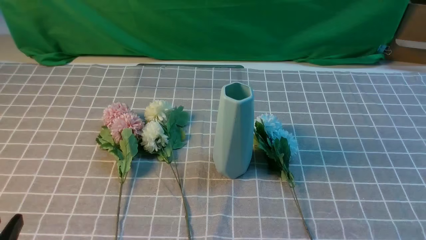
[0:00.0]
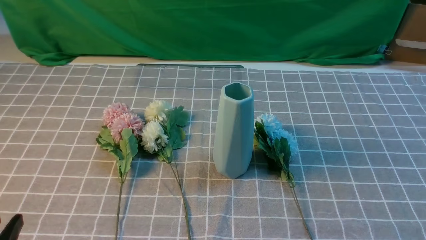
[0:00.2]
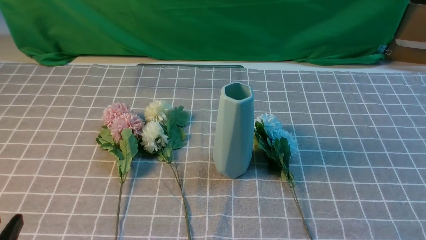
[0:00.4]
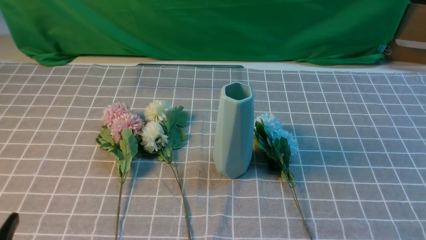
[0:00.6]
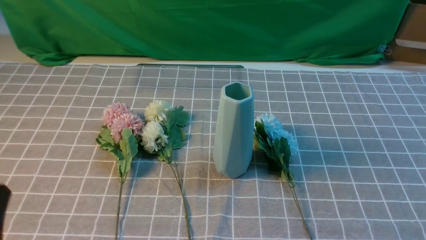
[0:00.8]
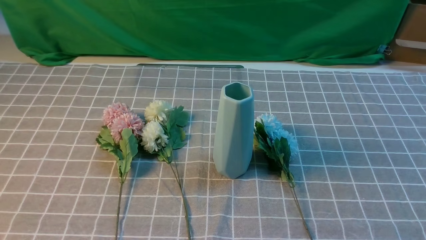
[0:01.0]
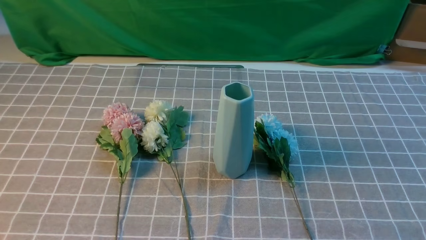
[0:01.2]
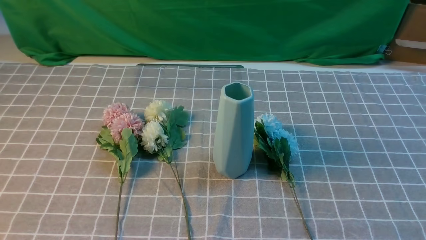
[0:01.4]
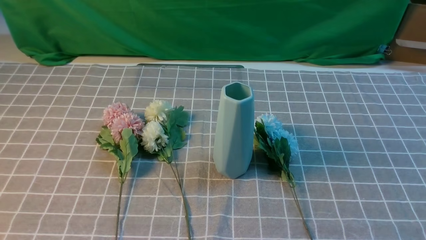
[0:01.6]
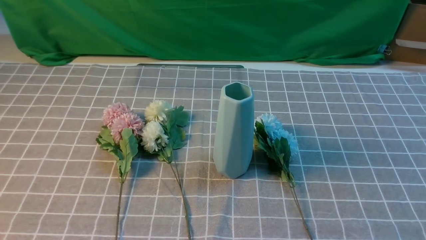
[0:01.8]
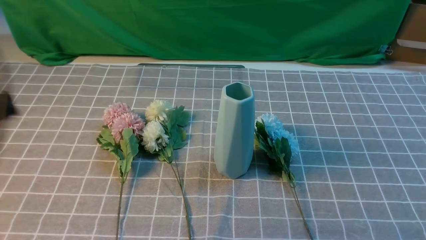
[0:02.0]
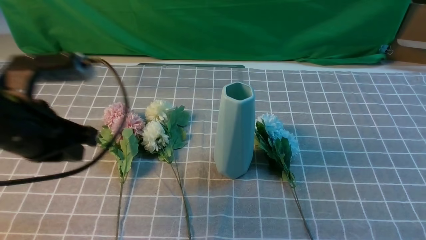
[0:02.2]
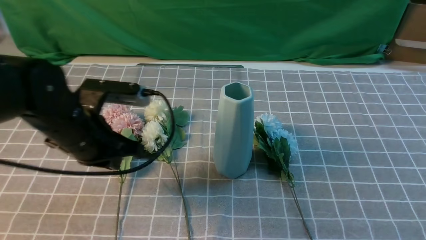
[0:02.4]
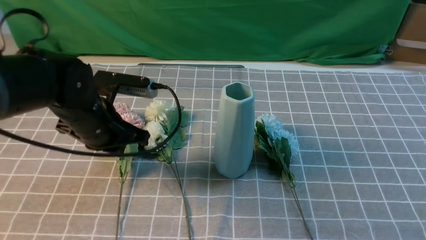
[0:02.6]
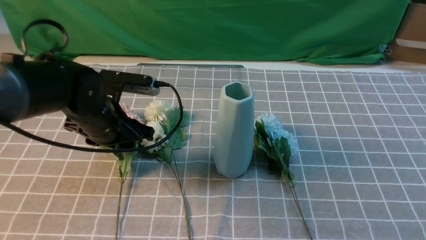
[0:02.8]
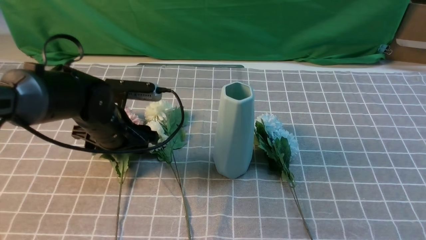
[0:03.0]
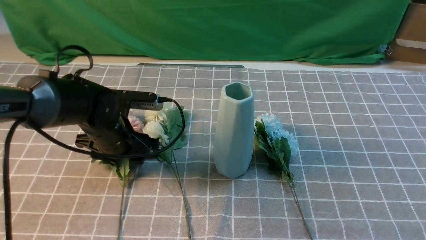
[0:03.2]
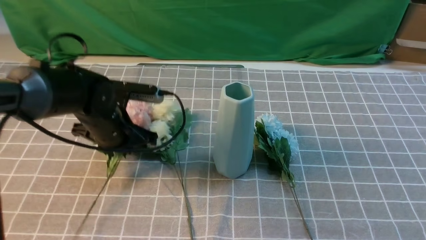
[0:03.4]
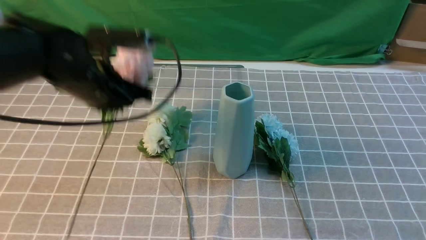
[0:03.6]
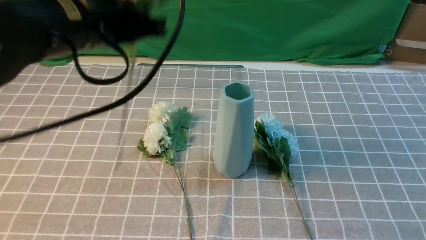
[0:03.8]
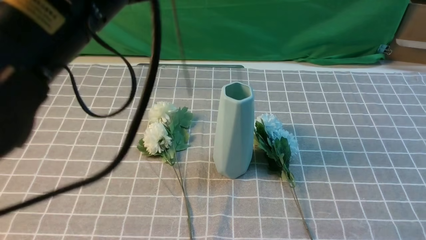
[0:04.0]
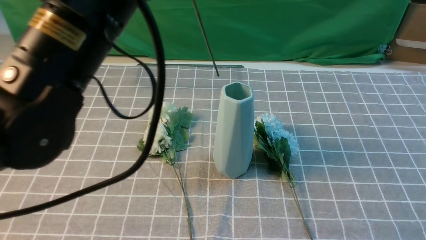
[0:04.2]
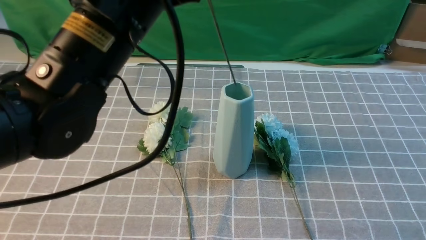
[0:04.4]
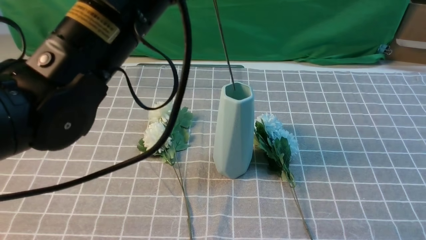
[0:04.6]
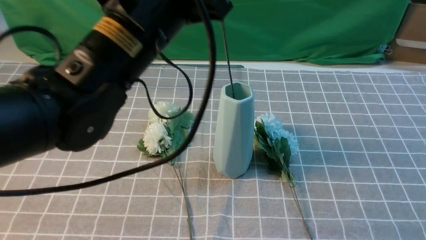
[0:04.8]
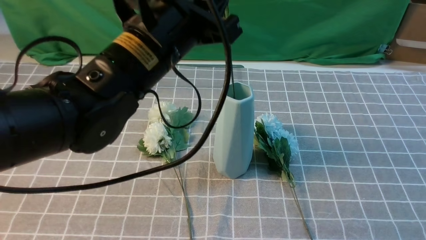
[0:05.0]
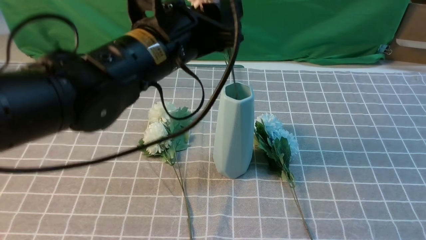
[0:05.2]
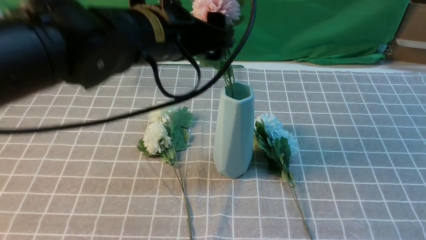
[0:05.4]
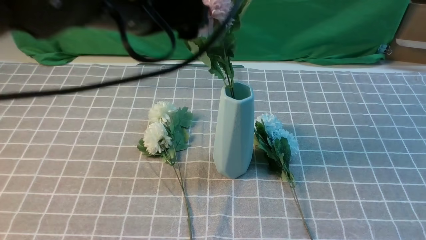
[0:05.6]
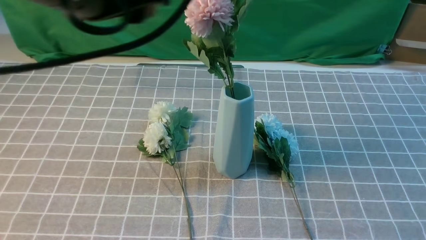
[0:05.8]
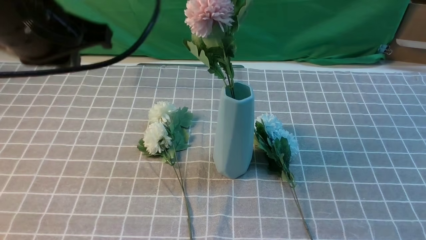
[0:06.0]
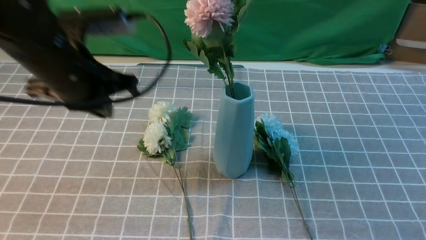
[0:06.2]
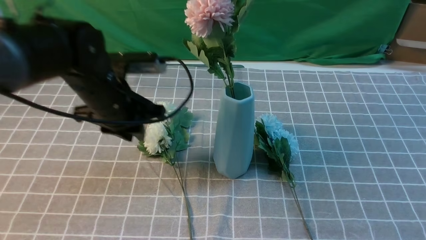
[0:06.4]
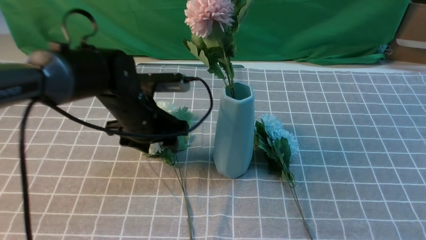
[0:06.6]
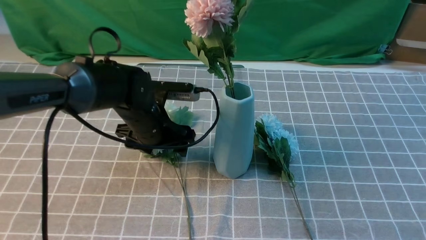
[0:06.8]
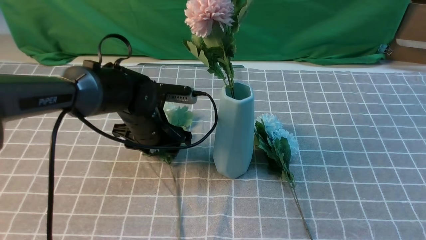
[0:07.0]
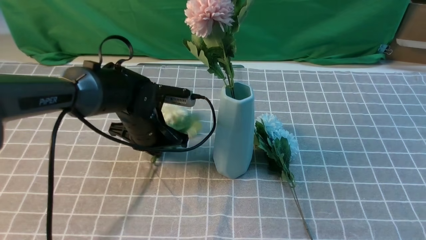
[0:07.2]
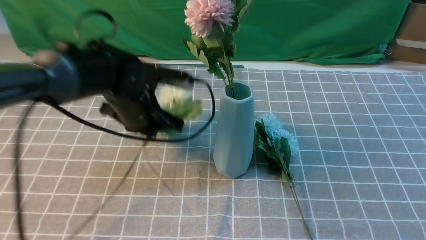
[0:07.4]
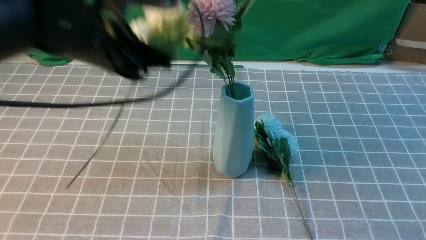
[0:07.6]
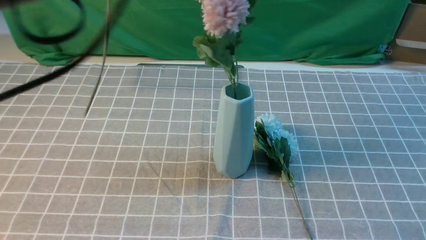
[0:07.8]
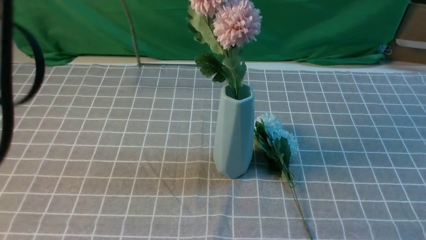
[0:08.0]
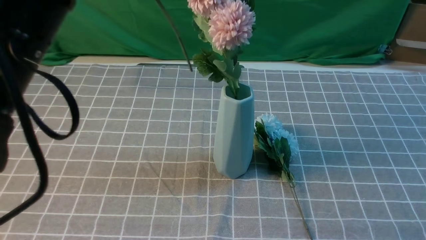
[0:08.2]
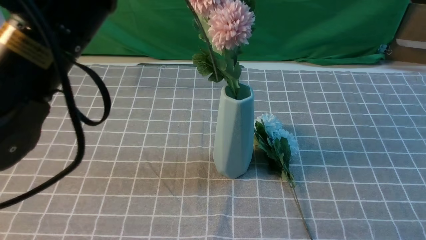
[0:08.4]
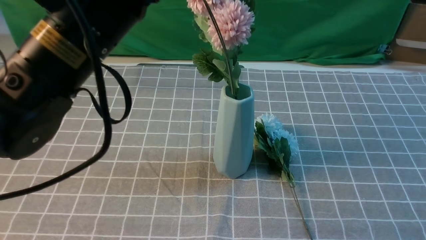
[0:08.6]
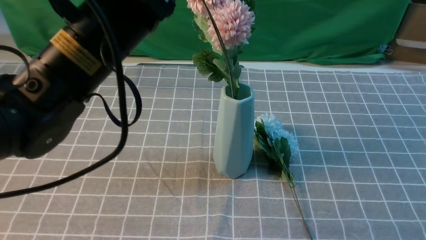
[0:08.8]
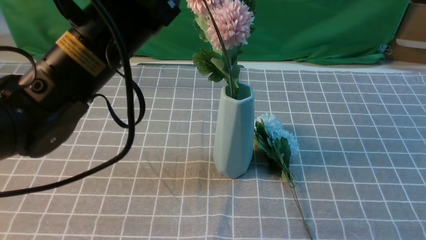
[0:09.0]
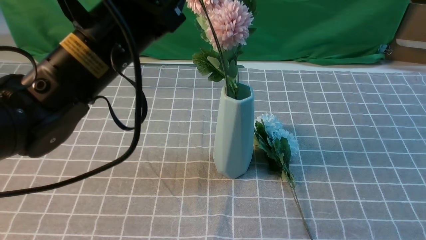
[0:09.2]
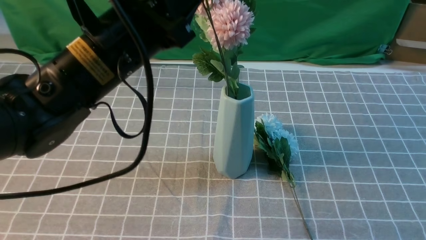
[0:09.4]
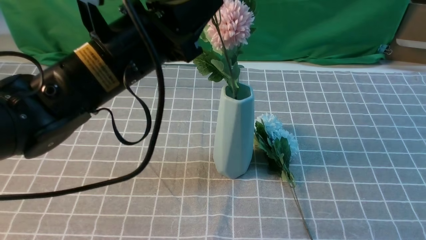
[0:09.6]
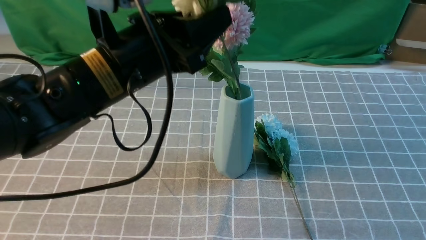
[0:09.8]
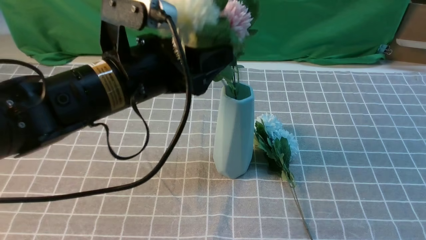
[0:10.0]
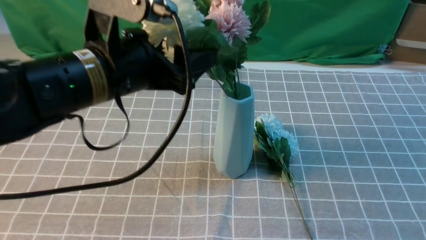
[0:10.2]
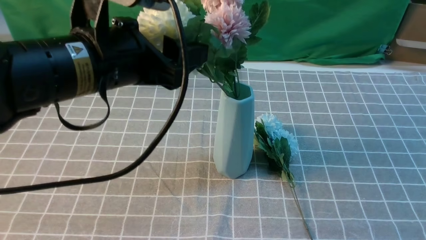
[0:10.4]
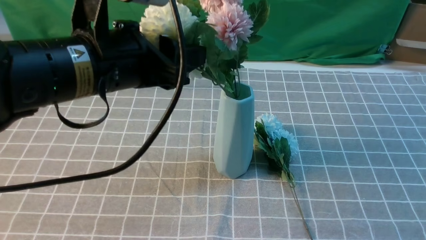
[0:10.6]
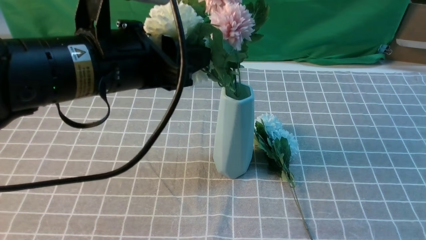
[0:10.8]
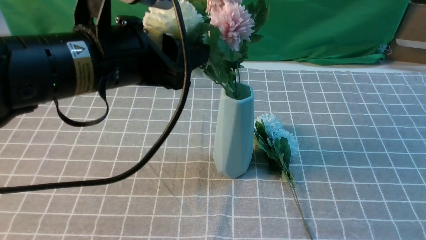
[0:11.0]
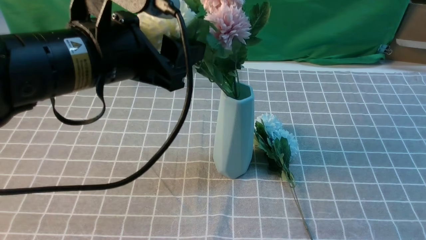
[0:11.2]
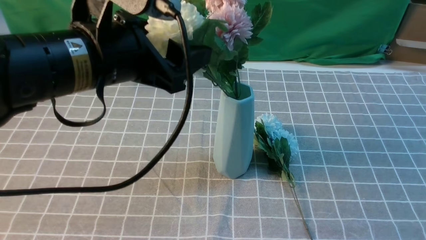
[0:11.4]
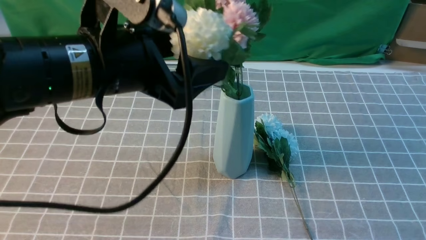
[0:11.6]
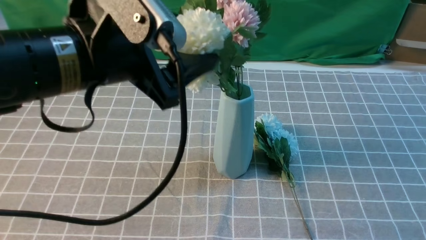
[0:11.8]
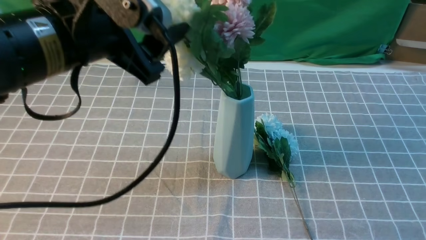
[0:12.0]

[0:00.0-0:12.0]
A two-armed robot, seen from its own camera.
Task of the whole recording: insert the flowers into the vase on the table with the grey tablecloth.
Step, 0:00.0 to 0:03.2: use the left arm to grab a bunch of fresh flowers.
Step, 0:03.4 to 0:05.4: use the left arm to insert the flowers into the vase.
Step, 0:05.6 to 0:07.2: use the left arm to grab a bunch of fresh flowers.
Step, 0:07.4 to 0:10.4: use the left arm to insert the flowers into the vase.
0:01.6 to 0:03.0: The right gripper shifts approximately 15 cm upward and forward, and closes up; the left gripper is displaced forward and downward by some 35 cm, and opens up.
0:03.0 to 0:04.4: The left gripper is displaced upward and backward by about 25 cm, and closes.
0:04.4 to 0:06.0: The left gripper travels to the left by some 5 cm, and opens, then closes again.
0:06.0 to 0:07.6: The left gripper moves about 20 cm downward and comes back, and opens, then closes again.
0:09.0 to 0:10.4: The left gripper opens up.

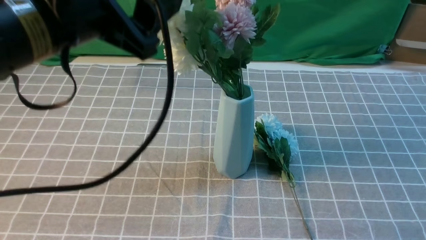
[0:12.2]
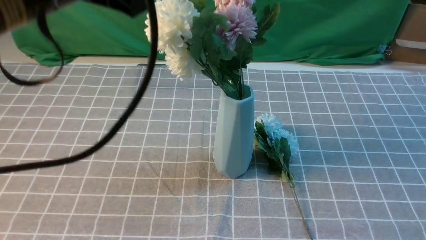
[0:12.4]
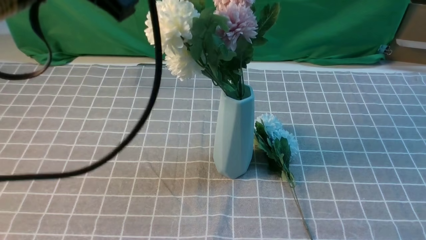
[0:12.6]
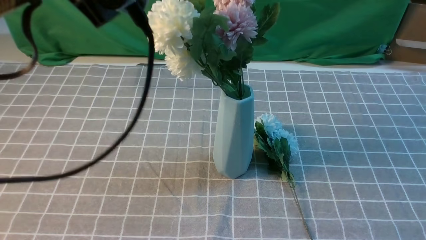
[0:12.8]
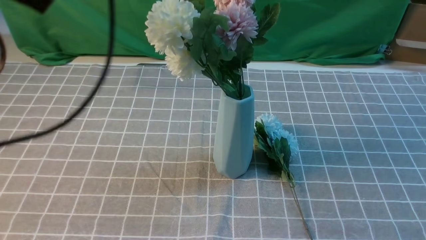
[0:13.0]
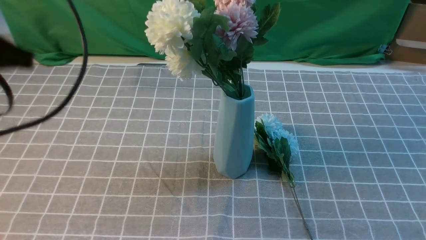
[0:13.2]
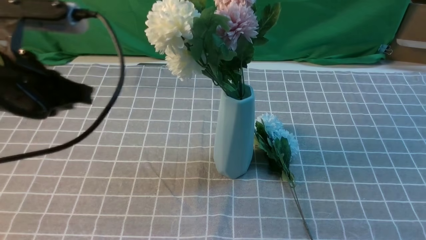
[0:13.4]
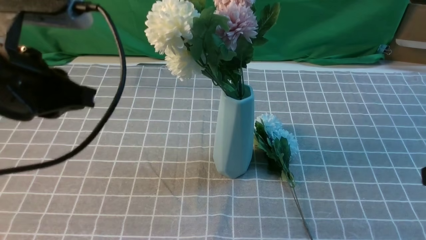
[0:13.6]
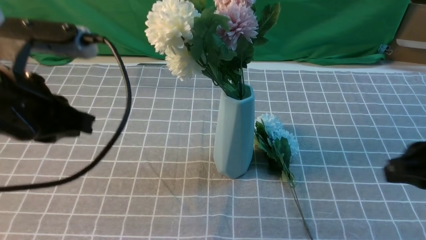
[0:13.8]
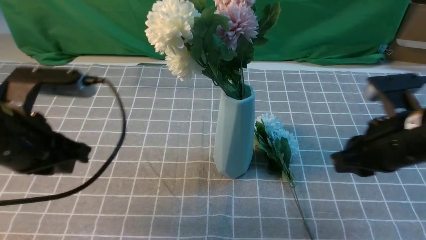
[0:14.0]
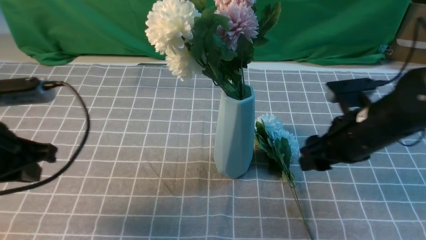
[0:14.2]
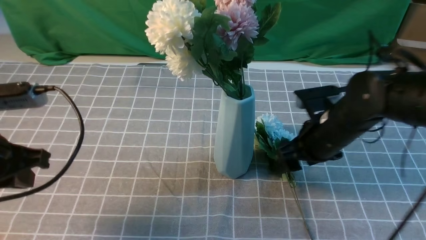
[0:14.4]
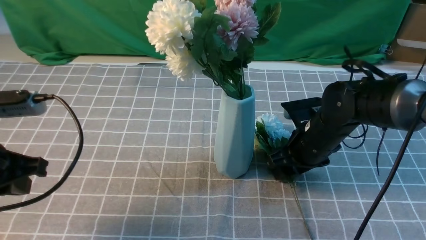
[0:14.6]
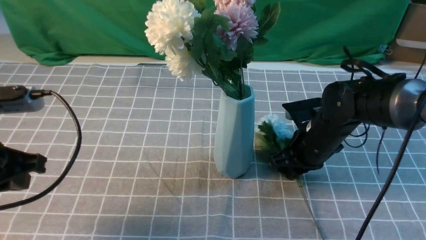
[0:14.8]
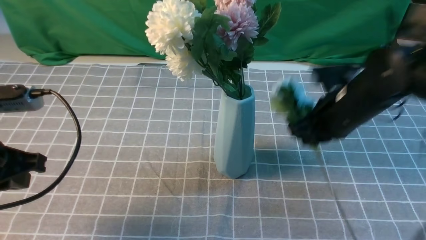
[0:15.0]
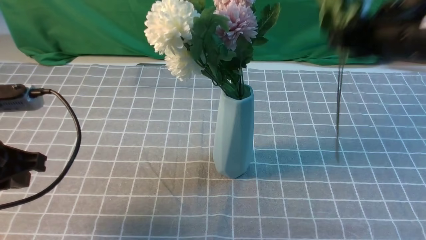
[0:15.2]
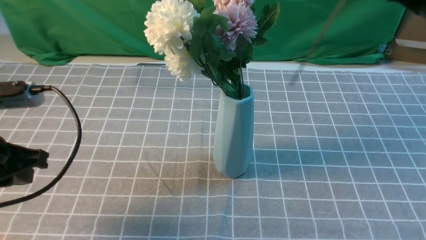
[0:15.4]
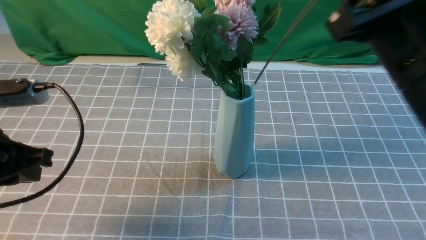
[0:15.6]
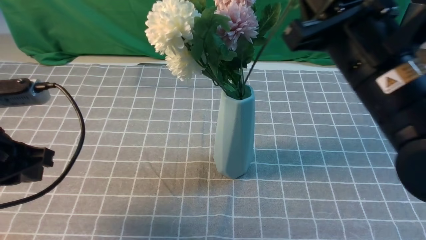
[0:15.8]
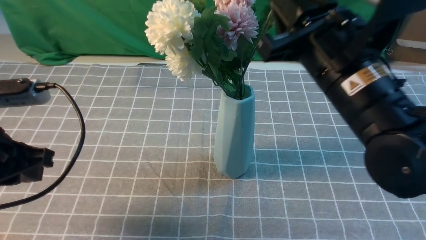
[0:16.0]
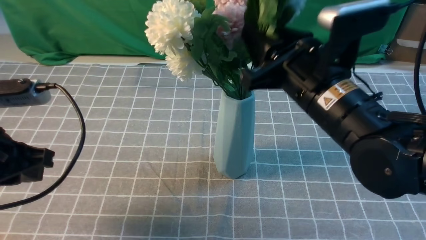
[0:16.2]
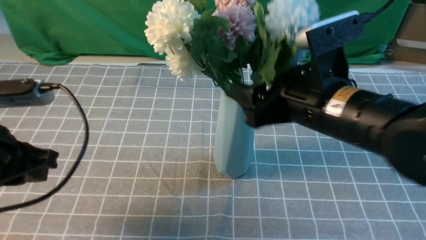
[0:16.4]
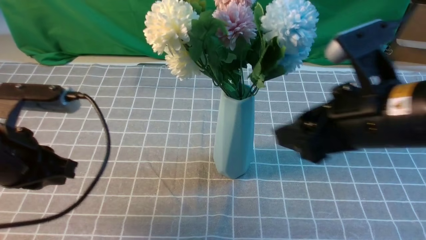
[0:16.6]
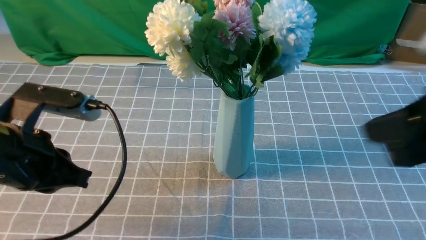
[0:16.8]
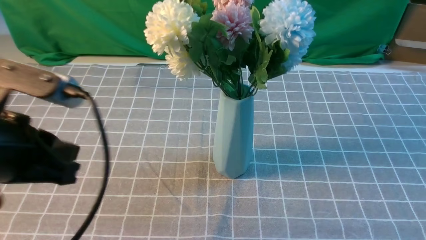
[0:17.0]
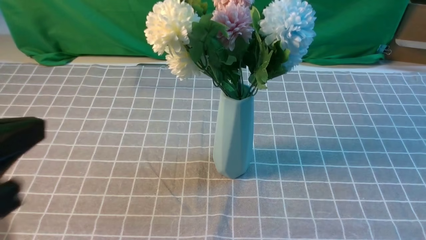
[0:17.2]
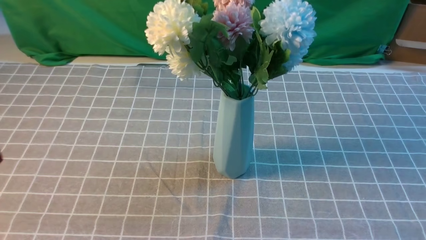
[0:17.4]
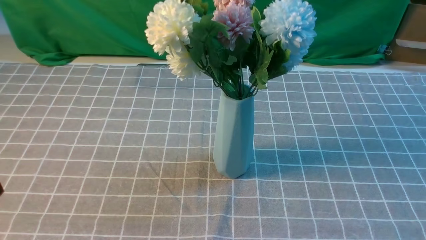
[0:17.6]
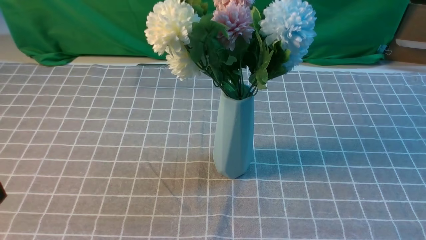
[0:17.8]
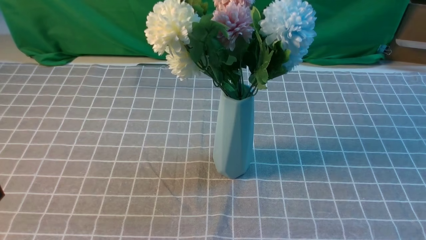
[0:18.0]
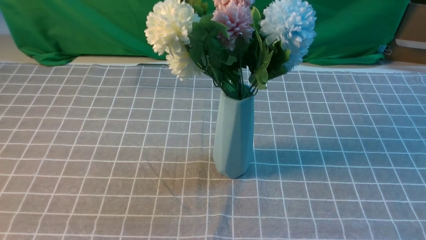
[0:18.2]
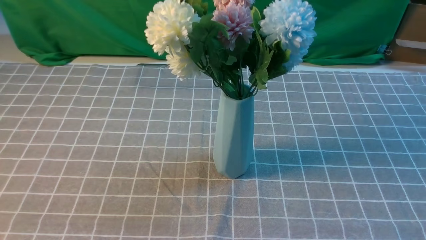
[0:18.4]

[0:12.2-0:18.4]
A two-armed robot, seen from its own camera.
Task of the whole recording: insert the flowers into the vase on the table with the grey tablecloth.
Step, 0:12.2 to 0:14.8: use the right arm to grab a bunch of fresh flowers.
Step, 0:15.0 to 0:16.4: use the right arm to insert the flowers into the vase.
0:12.2 to 0:13.8: The left gripper is displaced downward and to the left by about 10 cm, and closes, while the right gripper travels forward by about 10 cm.
0:13.8 to 0:15.4: The left gripper shifts roughly 10 cm to the left and downward. The right gripper travels upward and to the left by some 10 cm, and opens, then closes once more.
0:15.4 to 0:16.8: The right gripper heads backward, covering about 5 cm, and opens and closes again; the left gripper is displaced to the right by about 5 cm.
0:16.8 to 0:18.4: The left gripper travels backward by some 15 cm. Meanwhile the right gripper shifts approximately 15 cm backward, downward and to the right.
